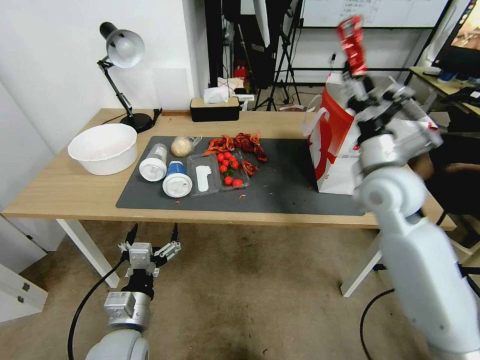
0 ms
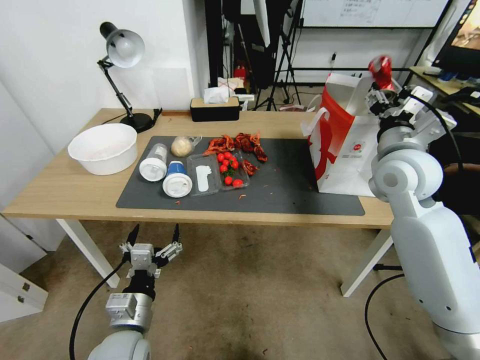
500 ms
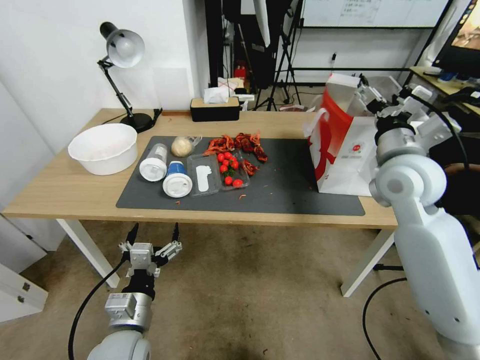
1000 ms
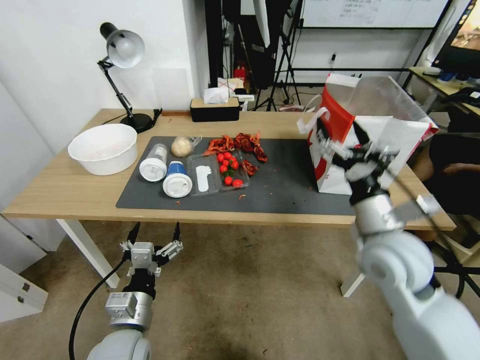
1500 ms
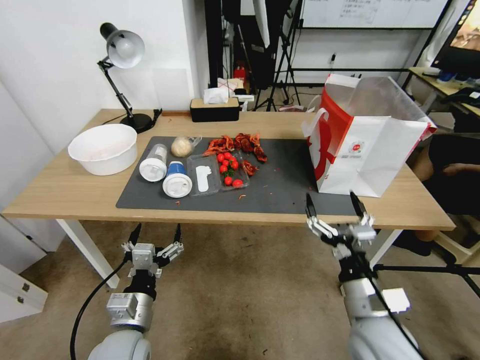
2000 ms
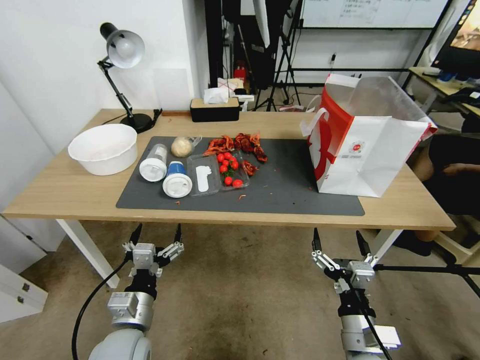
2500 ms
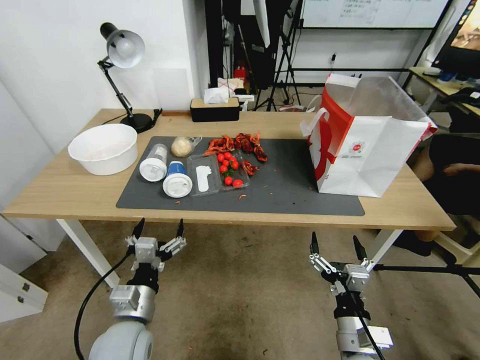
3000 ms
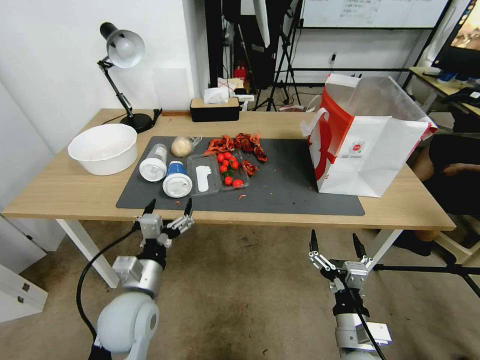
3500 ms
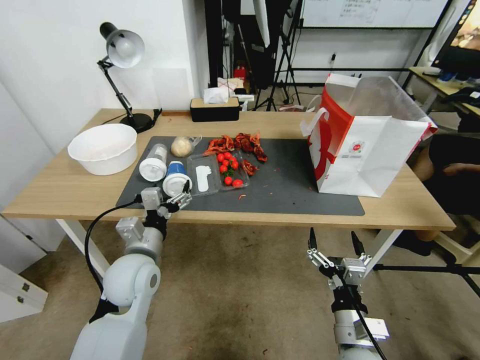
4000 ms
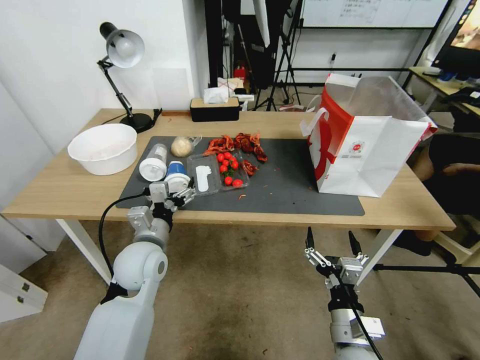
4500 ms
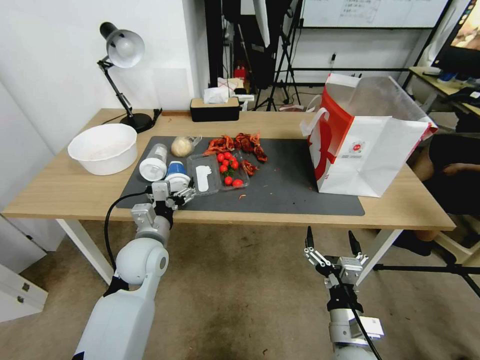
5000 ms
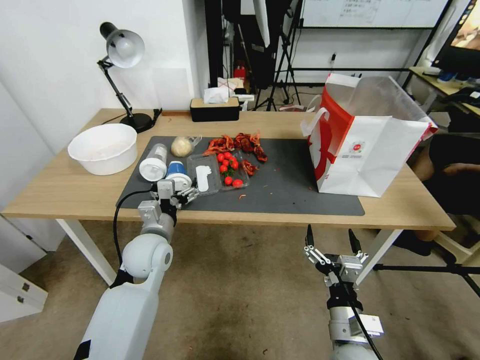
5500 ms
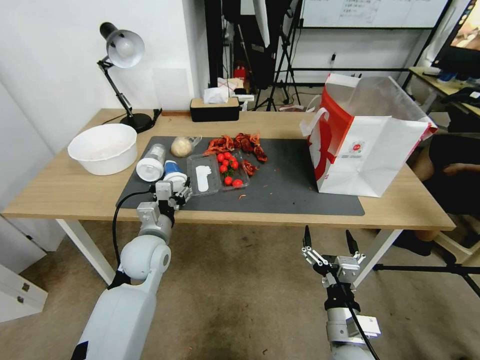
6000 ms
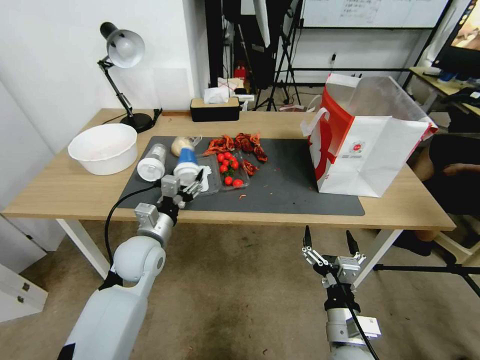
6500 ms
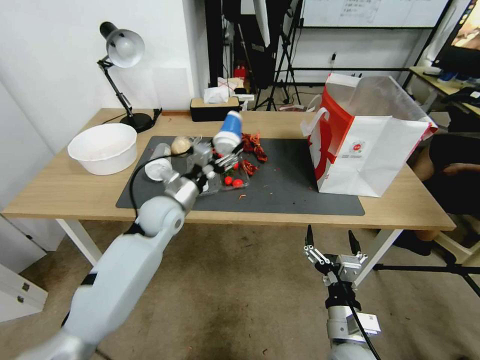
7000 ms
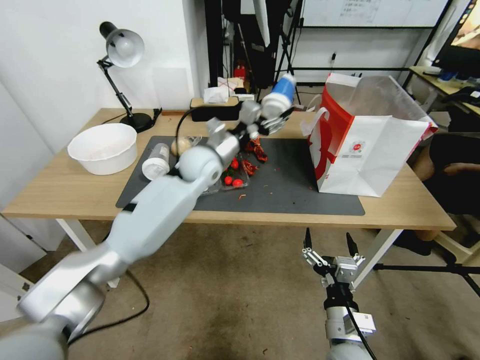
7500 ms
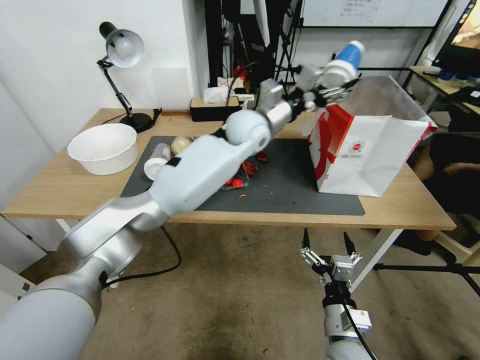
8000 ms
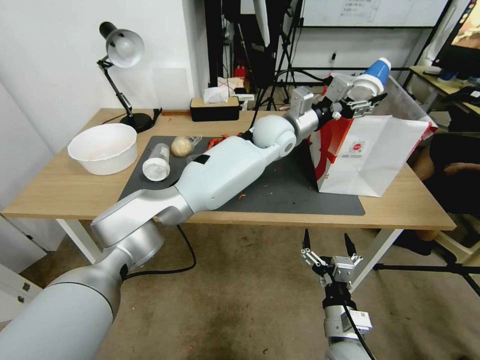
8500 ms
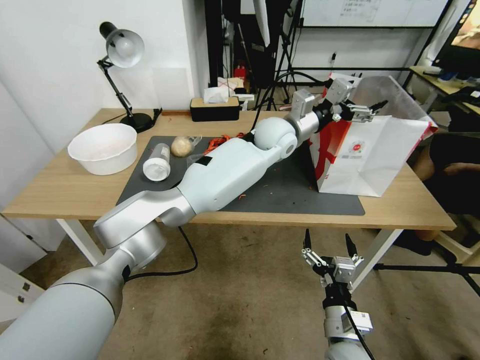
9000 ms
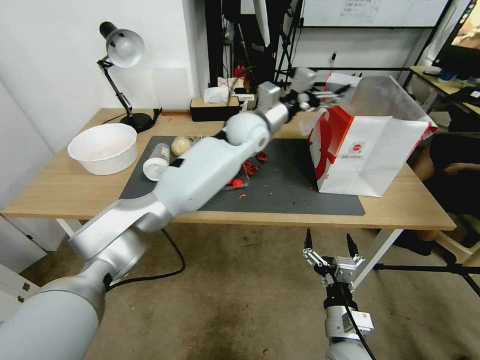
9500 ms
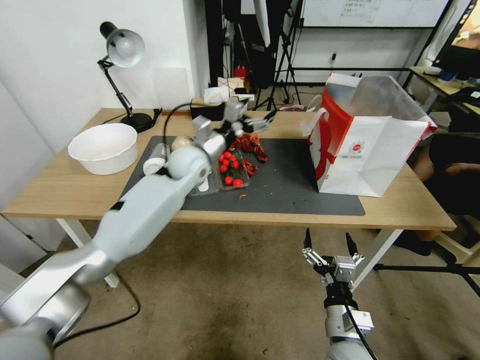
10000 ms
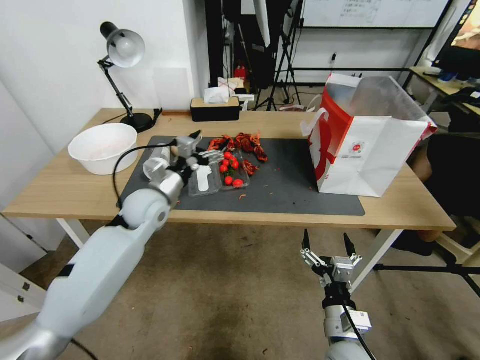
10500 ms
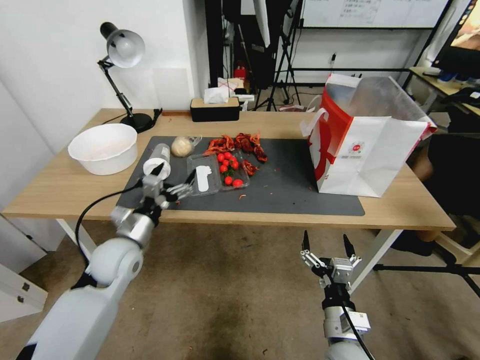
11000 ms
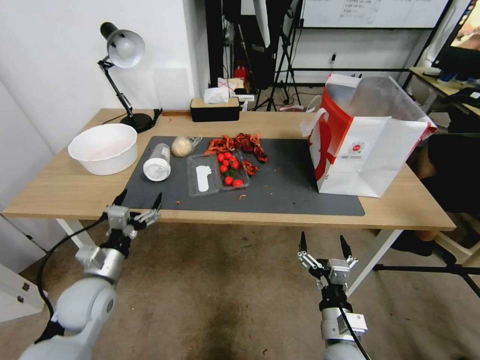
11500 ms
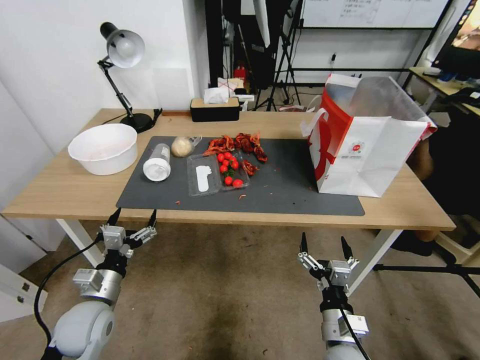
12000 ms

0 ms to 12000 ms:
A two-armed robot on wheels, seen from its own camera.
0 ms to 2000 ms: The right gripper goes some 25 cm backward and downward, and opens.
2000 ms to 4000 ms: The left gripper travels forward and upward by roughly 10 cm, while the right gripper heads downward, covering some 10 cm.
4000 ms to 6000 ms: The left gripper goes about 5 cm forward, and closes up.
6000 ms to 8000 ms: The left gripper heads to the right, forward and upward, covering roughly 35 cm.
8000 ms to 10000 ms: The left gripper heads to the left and downward, covering some 20 cm, and opens up.
10000 ms to 12000 ms: The left gripper travels backward, to the left and downward by about 40 cm.

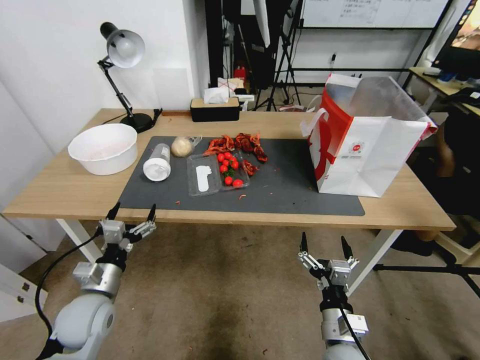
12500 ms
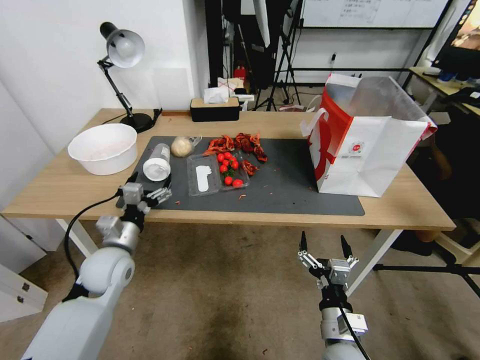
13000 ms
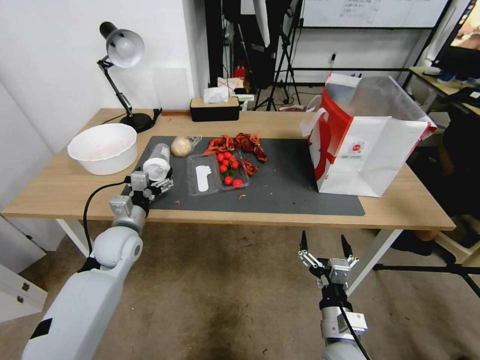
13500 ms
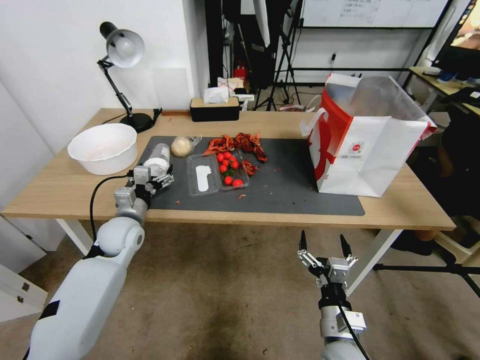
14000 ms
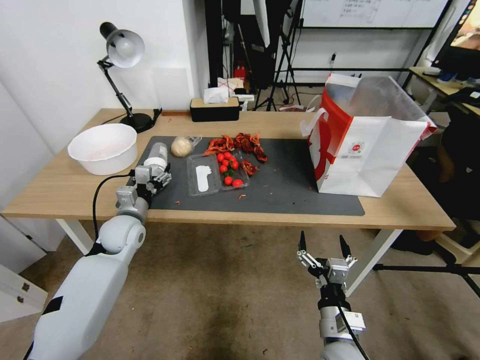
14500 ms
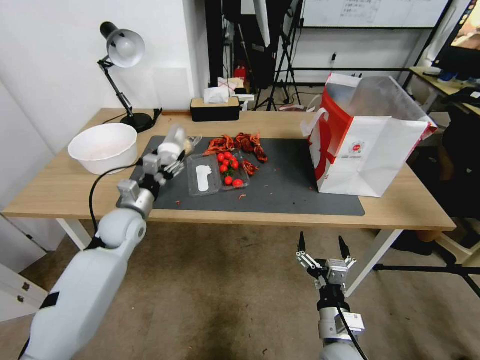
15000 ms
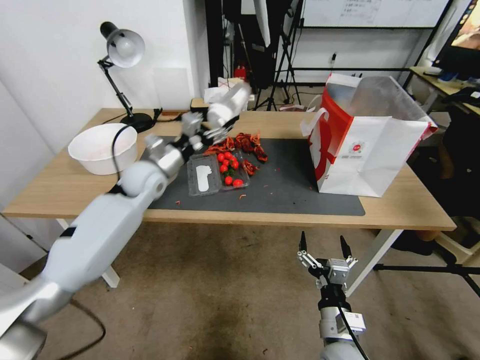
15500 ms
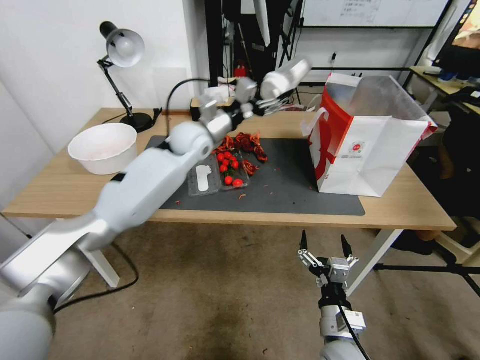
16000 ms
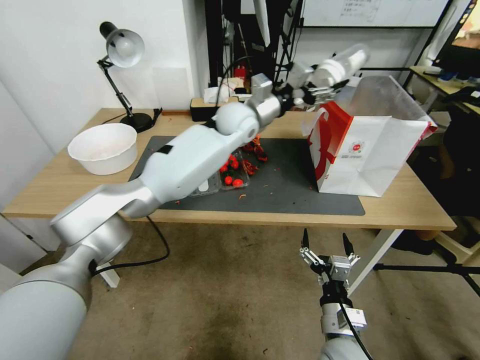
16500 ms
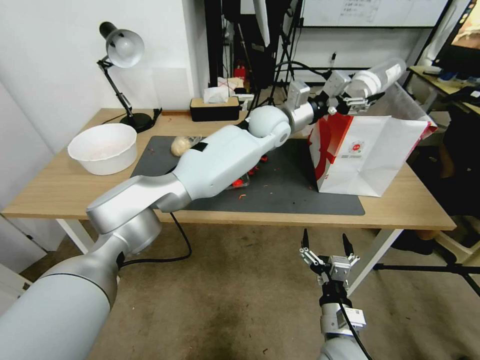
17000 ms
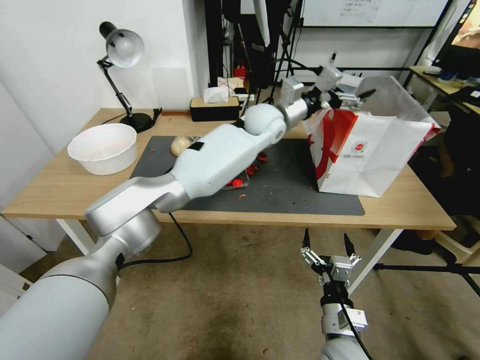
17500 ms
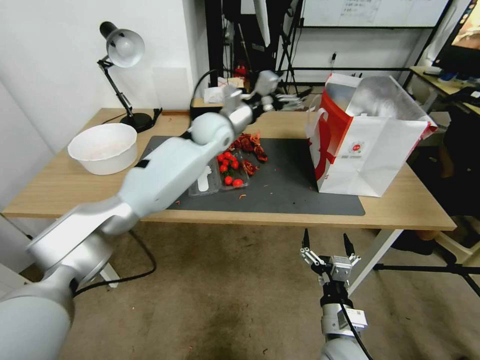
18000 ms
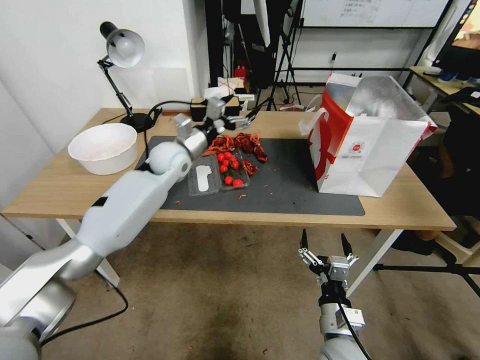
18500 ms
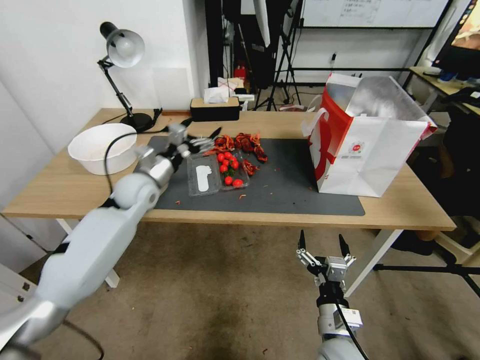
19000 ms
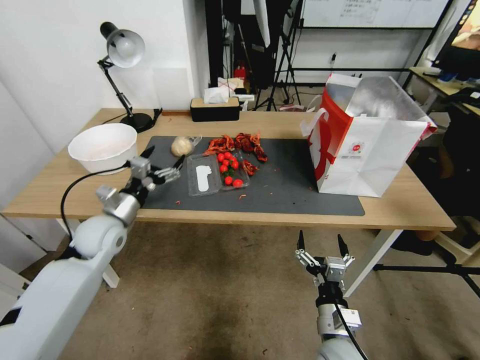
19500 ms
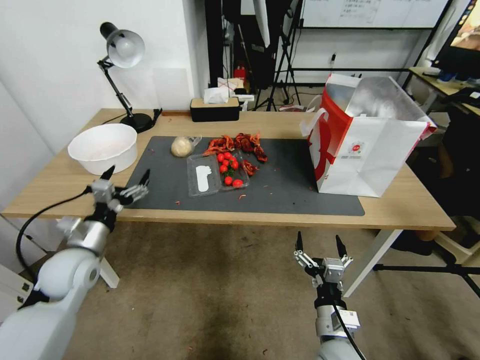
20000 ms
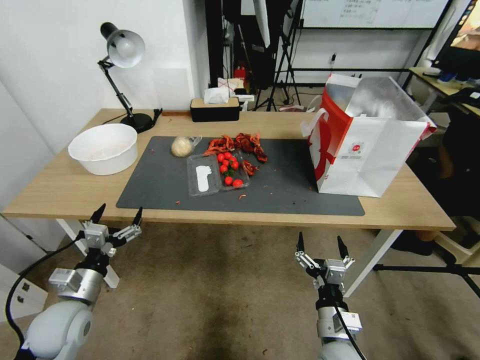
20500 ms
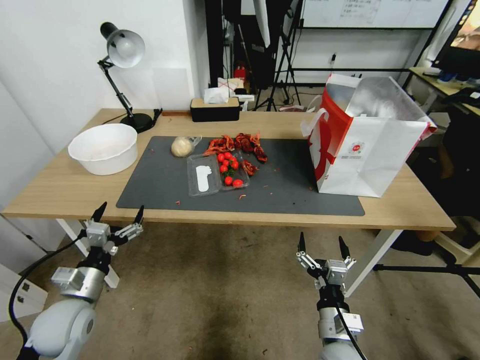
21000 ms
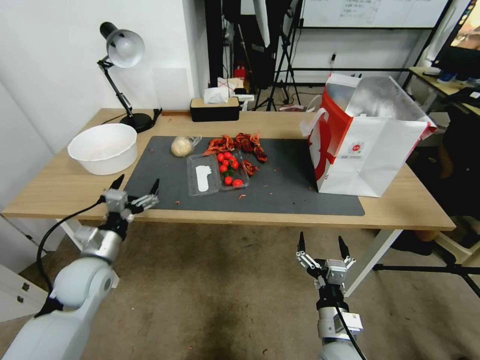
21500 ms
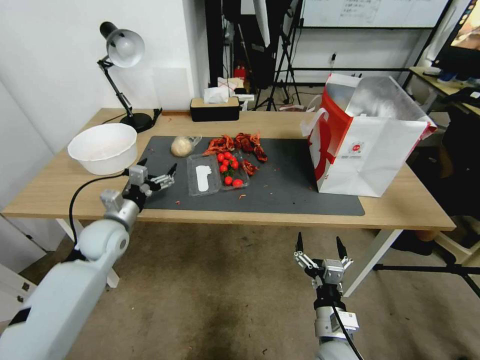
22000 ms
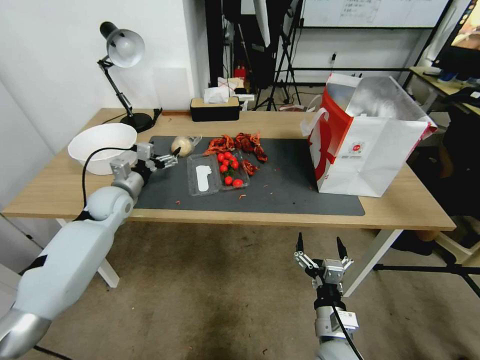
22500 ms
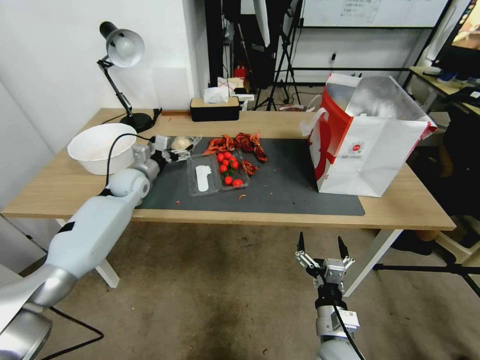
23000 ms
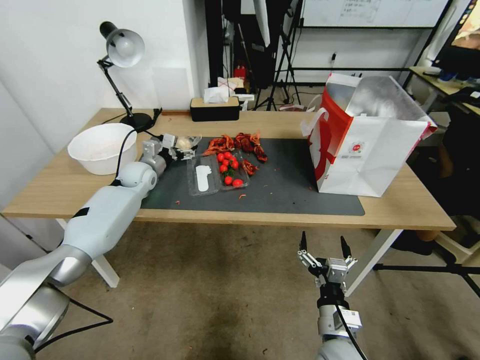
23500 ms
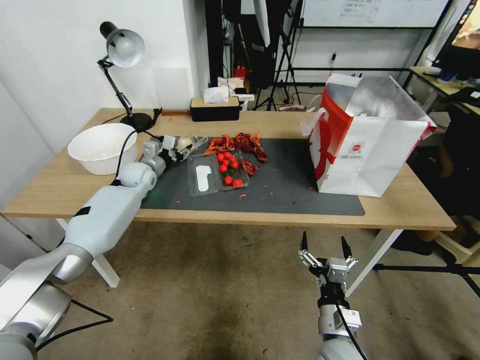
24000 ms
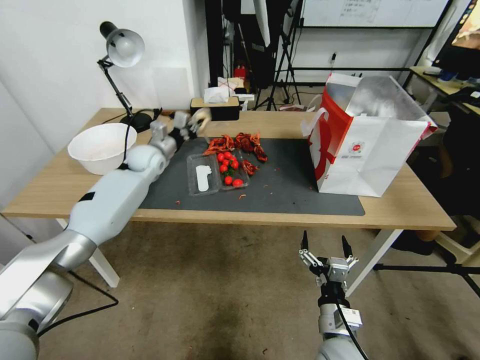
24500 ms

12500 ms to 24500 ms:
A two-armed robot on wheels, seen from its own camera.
12500 ms to 14500 ms: The left gripper goes some 15 cm forward.
14500 ms to 16500 ms: The left gripper heads to the right, upward and forward, covering some 40 cm.
16500 ms to 18500 ms: The left gripper heads to the left and downward, covering roughly 20 cm.
18500 ms to 20500 ms: The left gripper goes roughly 40 cm backward, to the left and downward.
20500 ms to 22500 ms: The left gripper heads forward, covering roughly 20 cm.
22500 ms to 24500 ms: The left gripper shifts about 15 cm forward and to the right, and closes up.

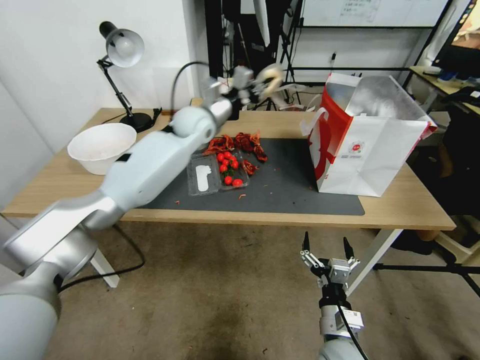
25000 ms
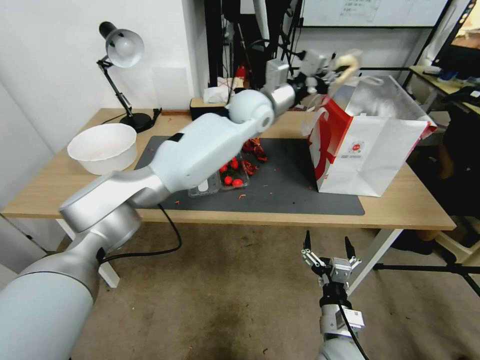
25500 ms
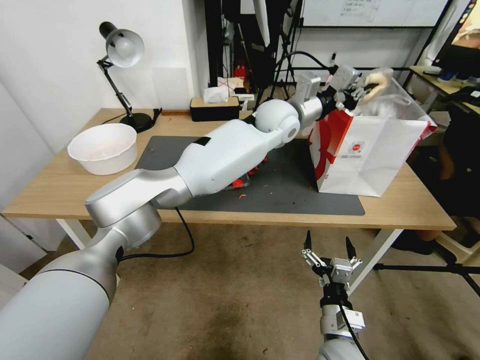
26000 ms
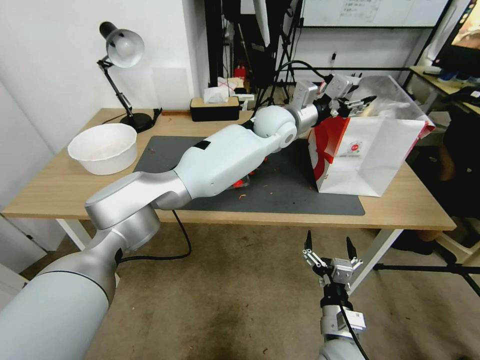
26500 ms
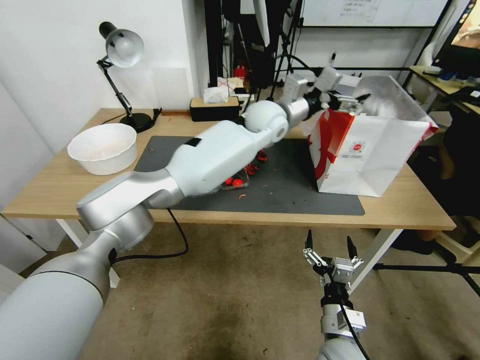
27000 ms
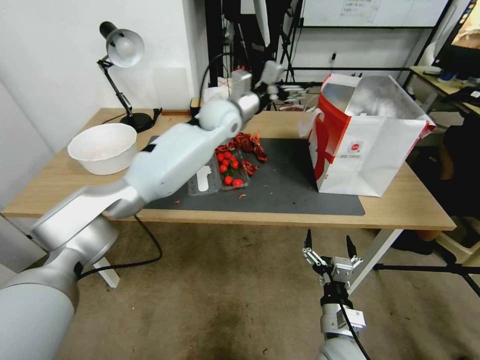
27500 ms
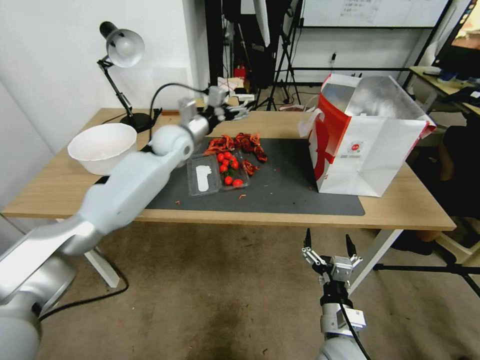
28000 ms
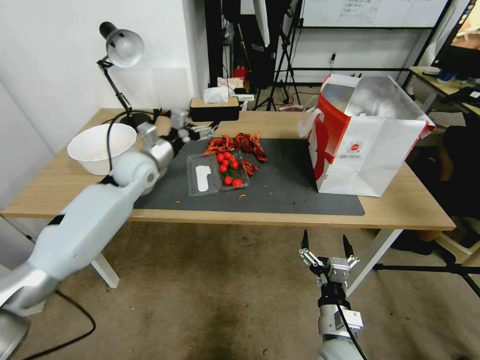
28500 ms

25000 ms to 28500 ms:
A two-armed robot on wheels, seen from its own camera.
25000 ms to 27000 ms: The left gripper moves to the right, about 15 cm, and opens its fingers.
27000 ms to 28500 ms: The left gripper is displaced to the left by some 30 cm.
